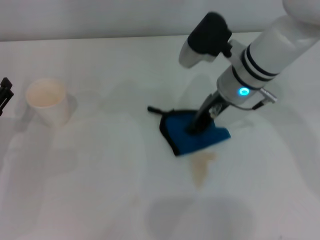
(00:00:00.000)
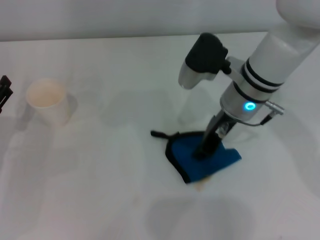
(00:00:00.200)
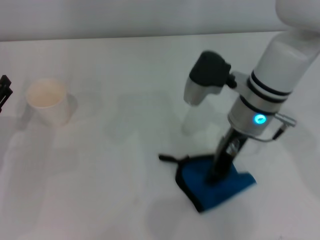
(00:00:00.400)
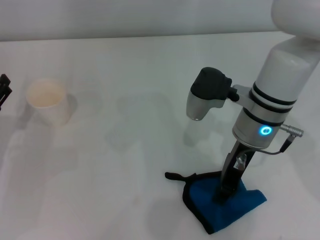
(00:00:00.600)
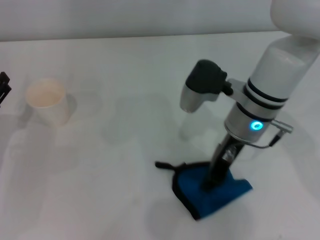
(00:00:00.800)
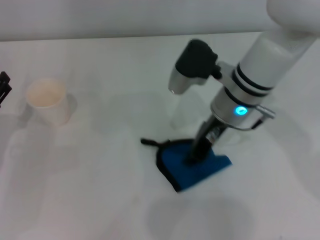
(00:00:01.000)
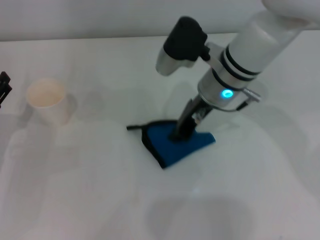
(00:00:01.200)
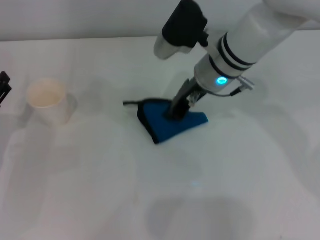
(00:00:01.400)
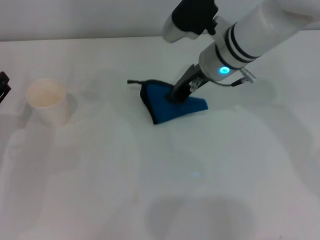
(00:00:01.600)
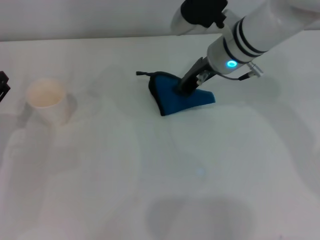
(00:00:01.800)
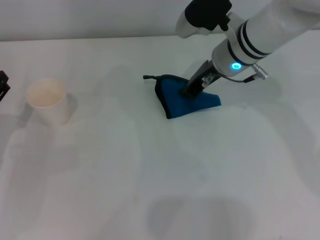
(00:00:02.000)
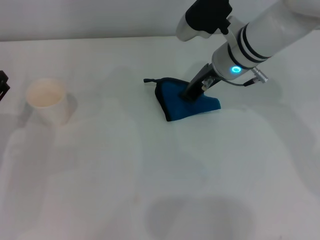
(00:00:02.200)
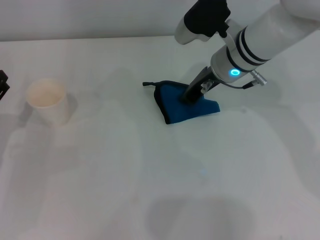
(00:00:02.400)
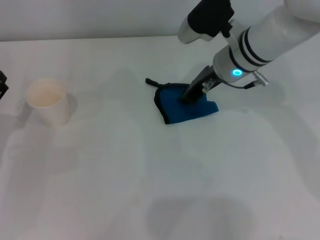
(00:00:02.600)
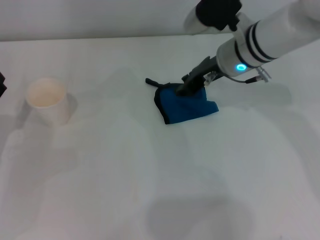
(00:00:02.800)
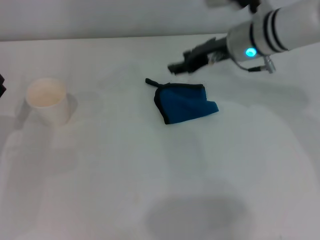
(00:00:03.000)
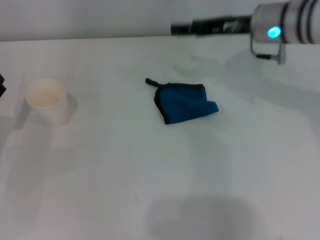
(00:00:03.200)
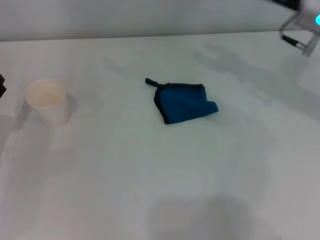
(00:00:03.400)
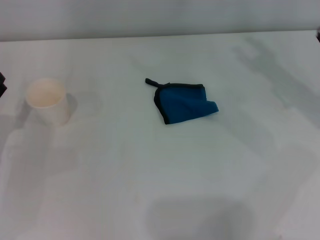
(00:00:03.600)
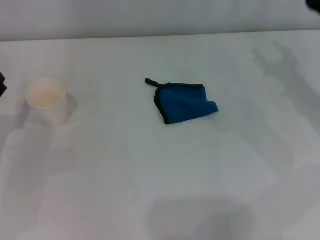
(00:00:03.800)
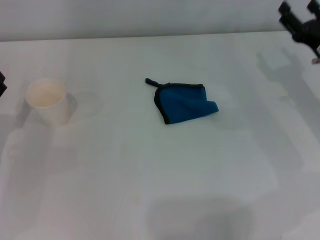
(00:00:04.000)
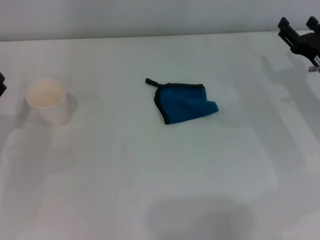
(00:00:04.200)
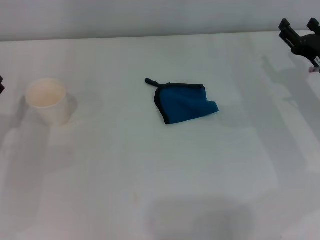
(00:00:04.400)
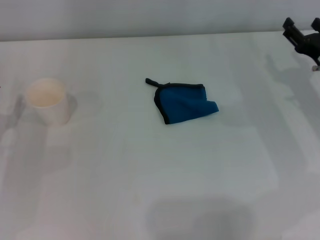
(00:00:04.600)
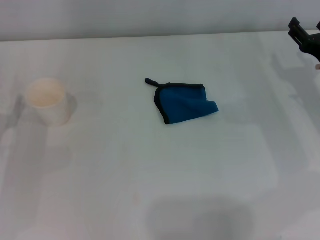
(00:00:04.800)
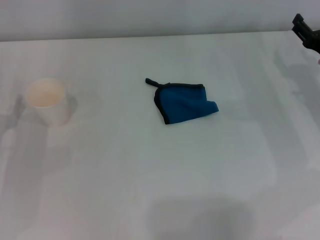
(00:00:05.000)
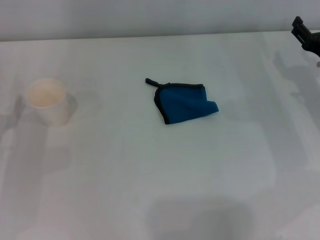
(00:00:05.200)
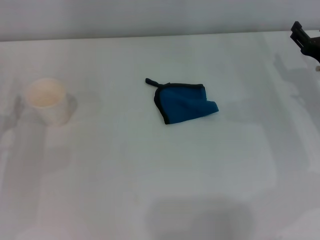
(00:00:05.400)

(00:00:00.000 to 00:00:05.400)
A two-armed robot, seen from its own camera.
Step, 00:00:00.000 - 00:00:02.000: Wipe the stains off the table with the right gripper.
Step, 00:00:02.200 - 00:00:02.600: Place the rag on the table with the right gripper.
00:00:01.400 - 00:00:02.800: There are only small adjustments of the grippers.
00:00:02.800 - 00:00:04.000: The right gripper shifts approximately 20 cm to the right, backward and downward, and opens up.
00:00:04.000 - 00:00:05.400: There are only small adjustments of the grippers.

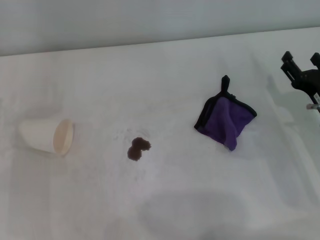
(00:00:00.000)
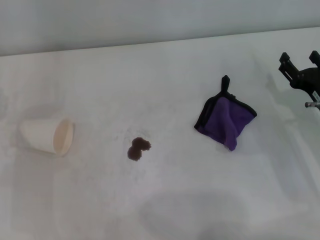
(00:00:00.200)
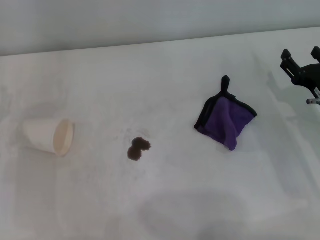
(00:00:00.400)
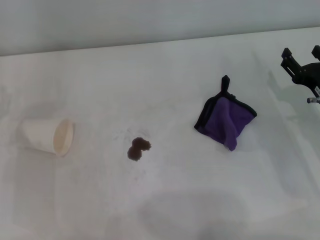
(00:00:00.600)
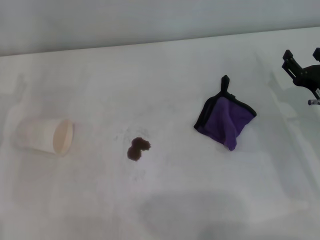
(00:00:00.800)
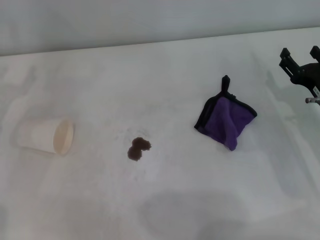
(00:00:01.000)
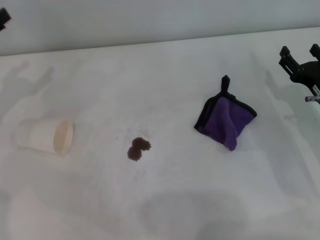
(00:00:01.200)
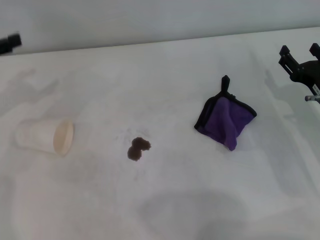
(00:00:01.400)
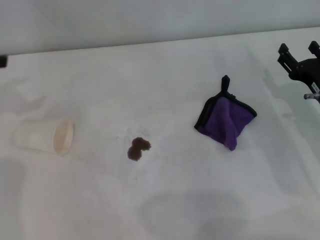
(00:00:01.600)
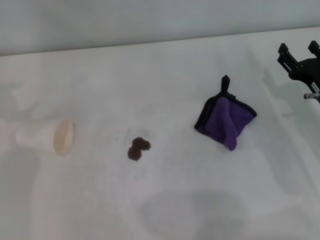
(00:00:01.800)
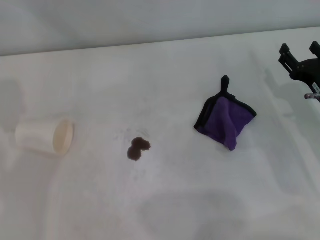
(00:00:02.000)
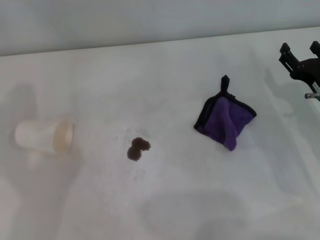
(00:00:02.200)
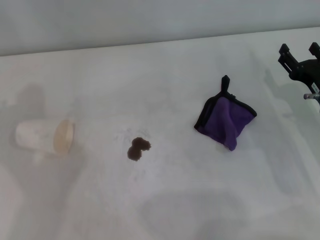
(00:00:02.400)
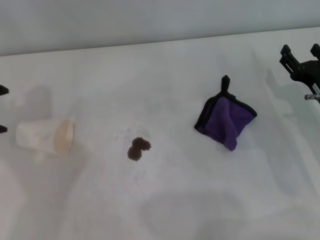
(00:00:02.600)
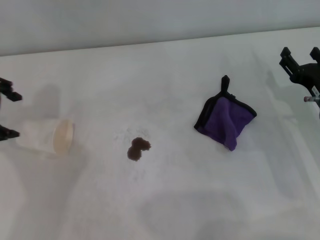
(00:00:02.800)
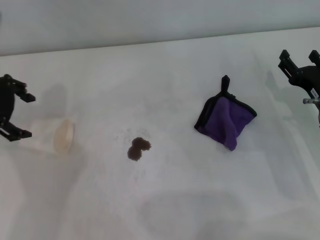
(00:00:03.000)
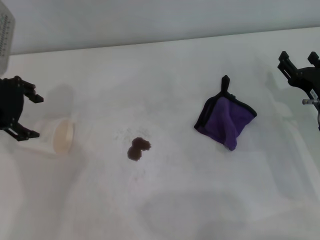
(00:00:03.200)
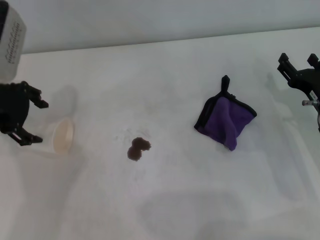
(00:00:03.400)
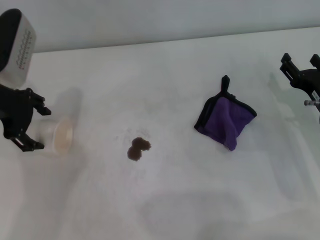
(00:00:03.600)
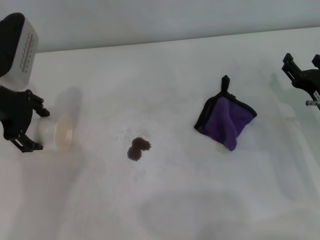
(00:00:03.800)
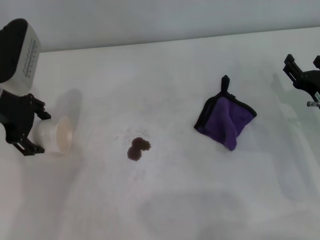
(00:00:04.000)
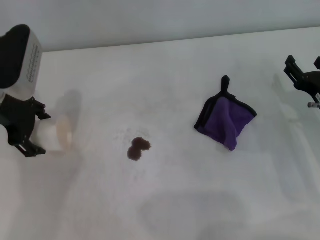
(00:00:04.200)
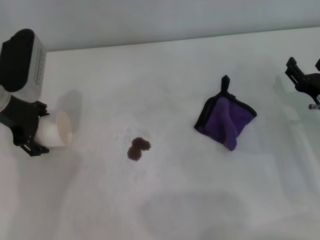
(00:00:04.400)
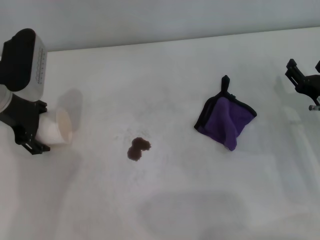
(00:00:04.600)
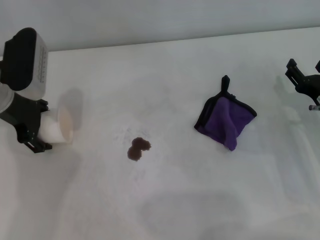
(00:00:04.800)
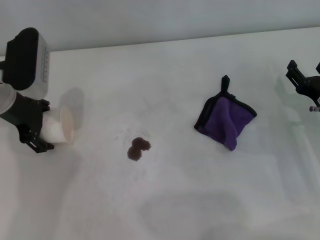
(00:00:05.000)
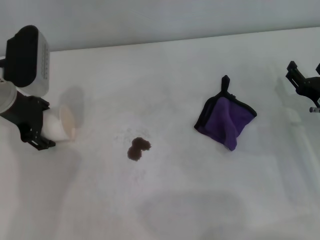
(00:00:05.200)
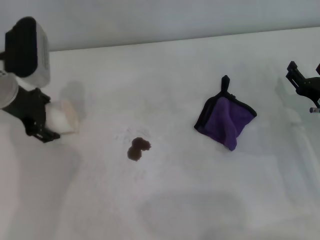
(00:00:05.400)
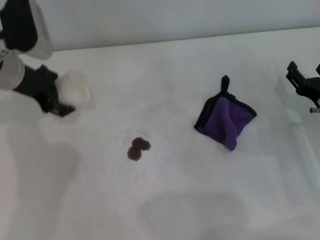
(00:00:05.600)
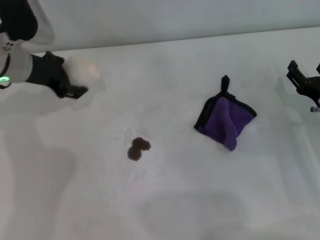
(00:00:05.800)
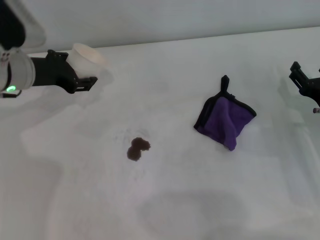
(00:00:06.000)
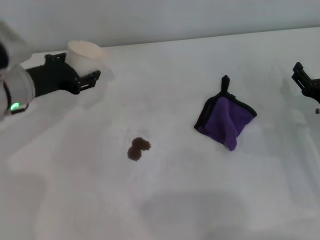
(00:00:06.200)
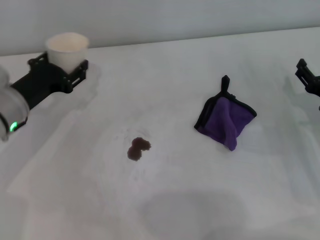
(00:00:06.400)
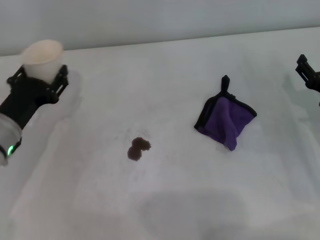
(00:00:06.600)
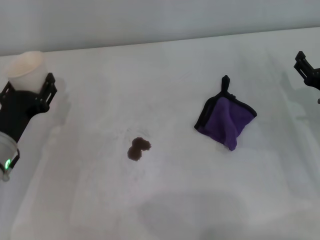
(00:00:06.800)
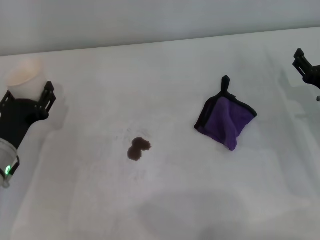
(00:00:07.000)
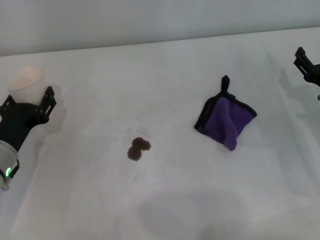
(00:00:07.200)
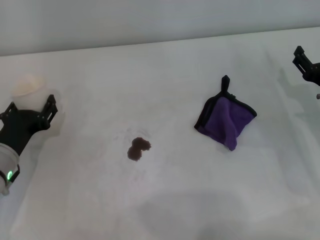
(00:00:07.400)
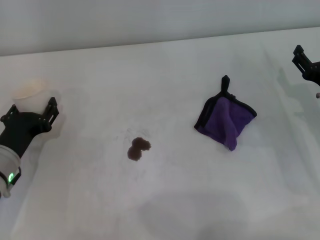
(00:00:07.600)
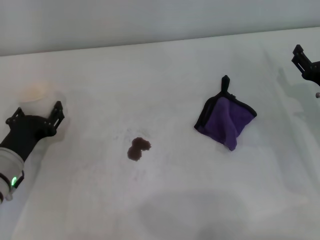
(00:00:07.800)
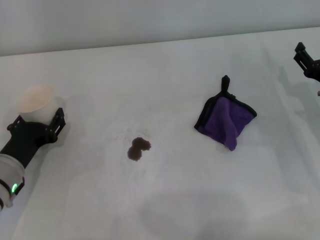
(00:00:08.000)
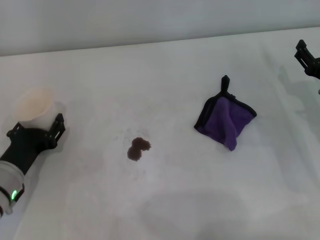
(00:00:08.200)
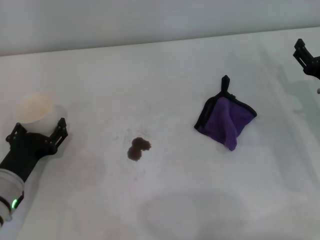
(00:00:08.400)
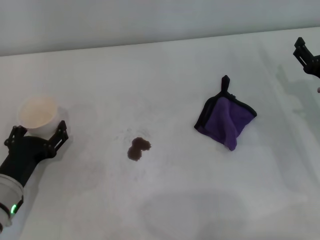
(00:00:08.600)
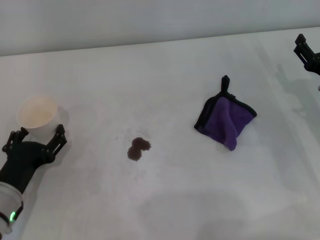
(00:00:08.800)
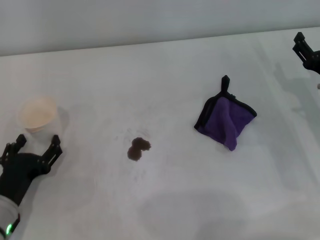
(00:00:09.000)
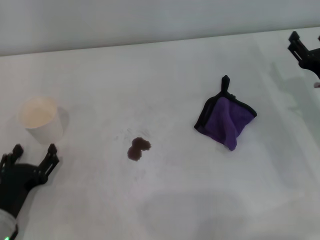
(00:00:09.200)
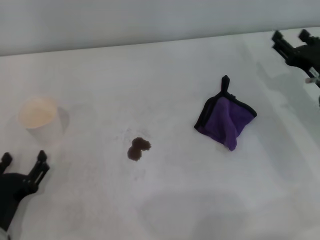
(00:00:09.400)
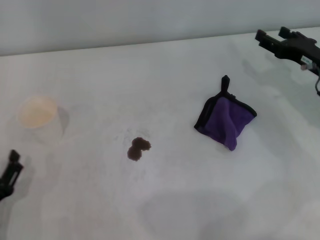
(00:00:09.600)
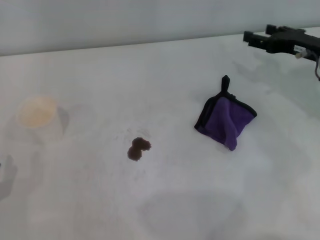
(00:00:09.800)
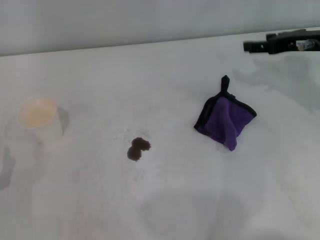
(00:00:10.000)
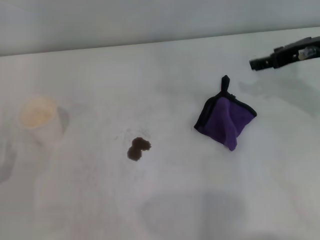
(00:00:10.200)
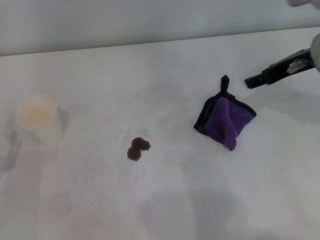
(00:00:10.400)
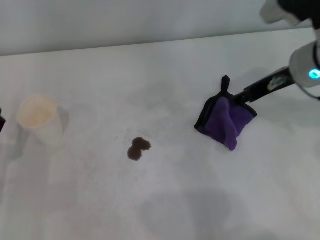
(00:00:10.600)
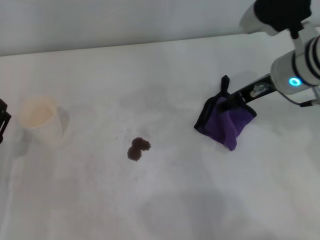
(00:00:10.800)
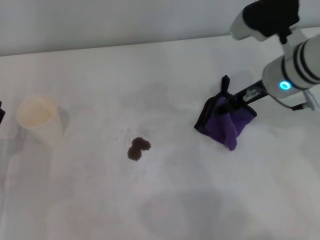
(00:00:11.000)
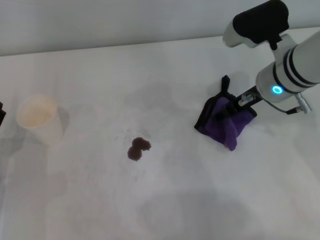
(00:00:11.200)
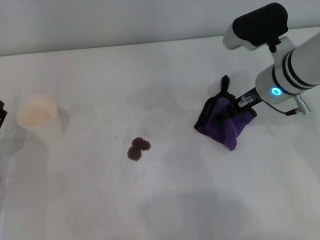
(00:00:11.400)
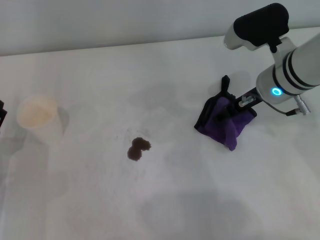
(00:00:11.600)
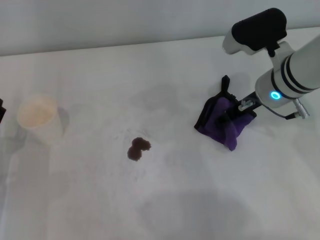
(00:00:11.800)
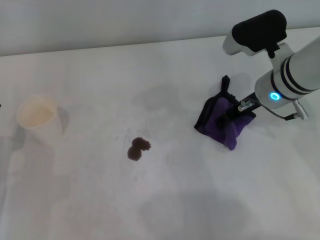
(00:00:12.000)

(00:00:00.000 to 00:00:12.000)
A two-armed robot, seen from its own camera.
Step, 00:00:00.000 - 00:00:05.000: Grasp the paper cup with the left gripper.
Step, 00:00:05.200 - 00:00:08.800: Stand the paper cup upright with the left gripper.
00:00:01.600 - 00:00:03.000: The left gripper moves to the right, approximately 10 cm.
00:00:03.000 - 00:00:04.400: The left gripper is displaced downward by about 5 cm.
00:00:04.400 - 00:00:06.000: The left gripper closes.
00:00:06.000 - 00:00:07.600: The left gripper heads backward and downward, covering approximately 15 cm.
00:00:07.600 - 00:00:09.000: The left gripper travels backward by roughly 5 cm, and opens.
00:00:09.000 - 00:00:10.400: The left gripper shifts by some 5 cm. Meanwhile the right gripper goes some 15 cm upward and to the left.
00:00:10.400 - 00:00:12.000: The right gripper heads downward and to the left, covering roughly 10 cm.

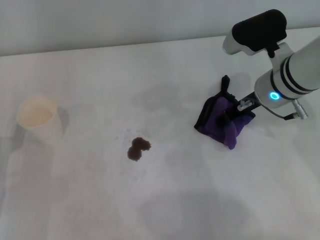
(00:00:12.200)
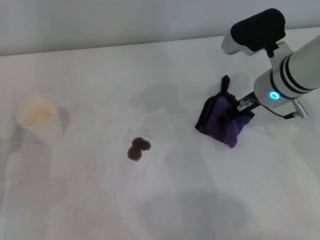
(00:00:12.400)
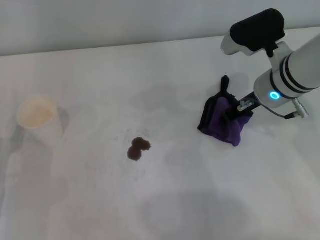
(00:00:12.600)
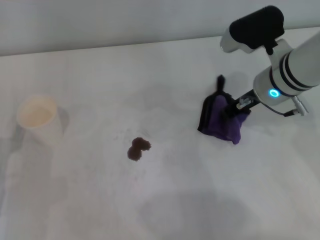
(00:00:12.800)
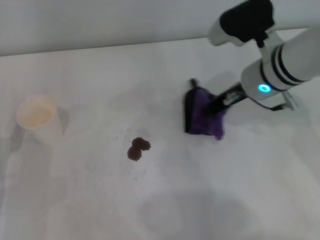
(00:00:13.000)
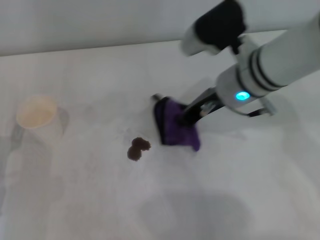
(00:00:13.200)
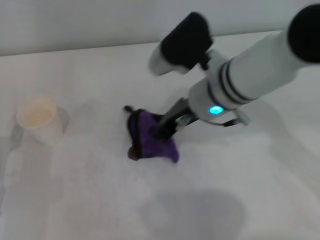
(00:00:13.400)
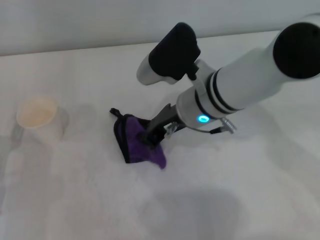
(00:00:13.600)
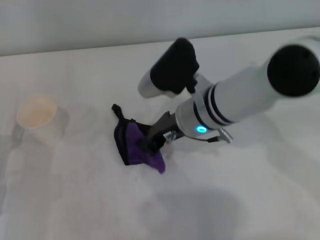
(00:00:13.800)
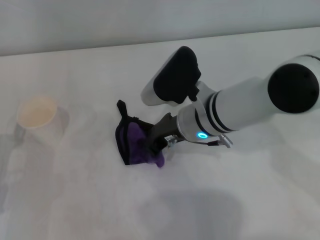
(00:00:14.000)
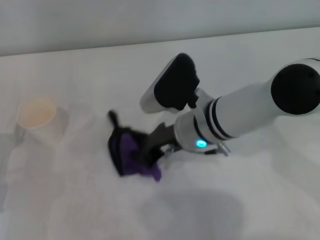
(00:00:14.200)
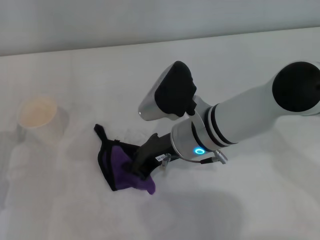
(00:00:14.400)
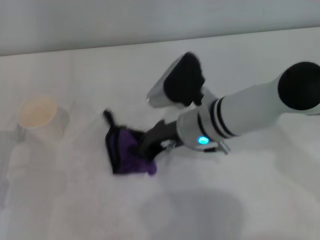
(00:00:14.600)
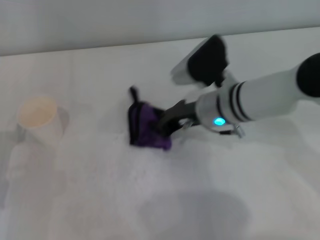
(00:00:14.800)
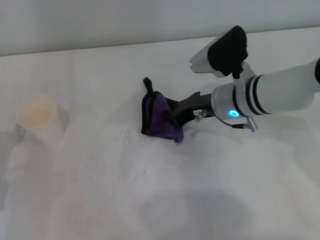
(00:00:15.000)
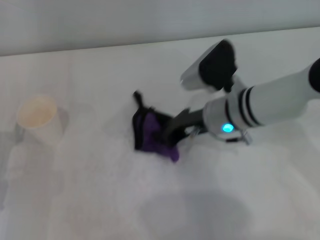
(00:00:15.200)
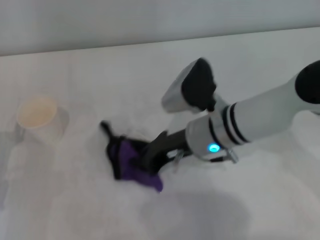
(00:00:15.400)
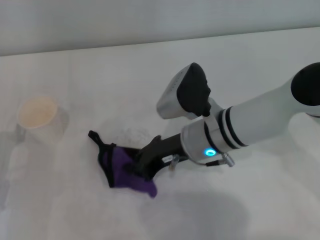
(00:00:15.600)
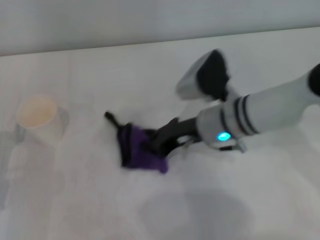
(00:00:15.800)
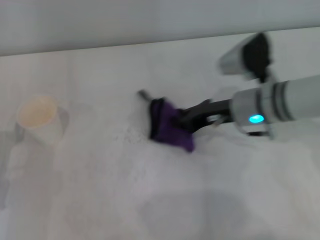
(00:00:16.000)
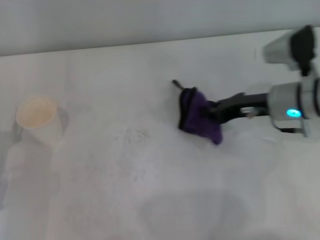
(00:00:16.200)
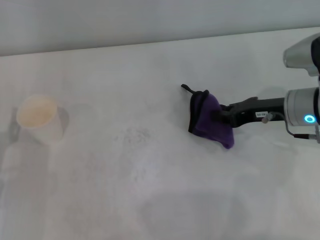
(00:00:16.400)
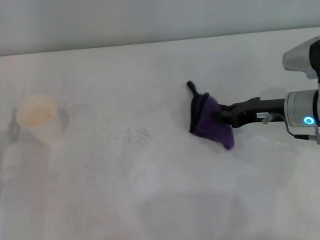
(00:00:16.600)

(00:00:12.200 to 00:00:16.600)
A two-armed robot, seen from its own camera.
Step, 00:00:12.800 - 00:00:15.600: Wipe the stains off the table with the right gripper.
Step, 00:00:16.000 - 00:00:16.400: Place the rag on the table with the right gripper.
00:00:12.200 - 00:00:13.600: The right gripper is displaced to the left by approximately 10 cm, and closes its fingers.
00:00:13.600 - 00:00:15.200: The right gripper shifts about 5 cm downward.
00:00:15.200 - 00:00:16.600: The right gripper heads to the right, covering some 10 cm.
